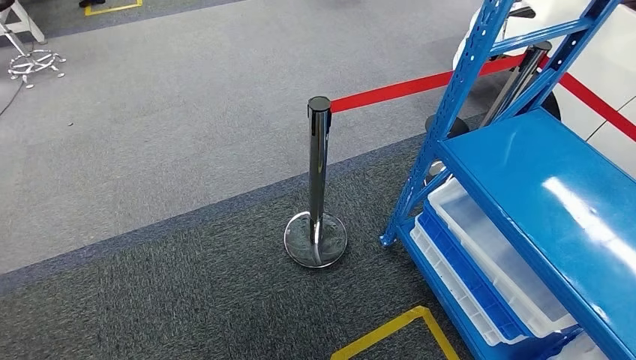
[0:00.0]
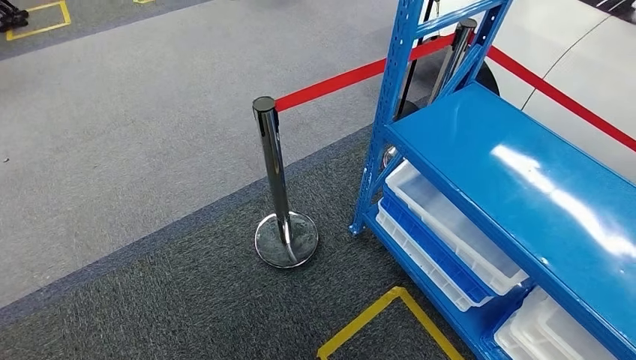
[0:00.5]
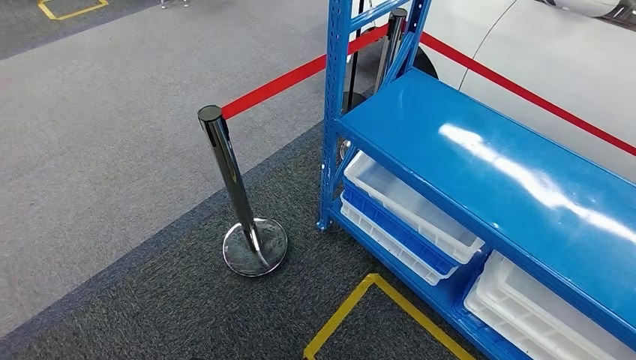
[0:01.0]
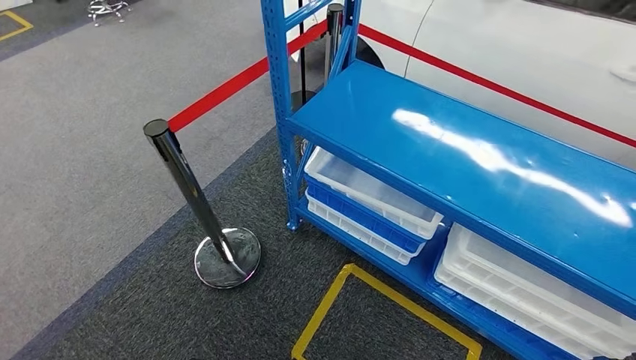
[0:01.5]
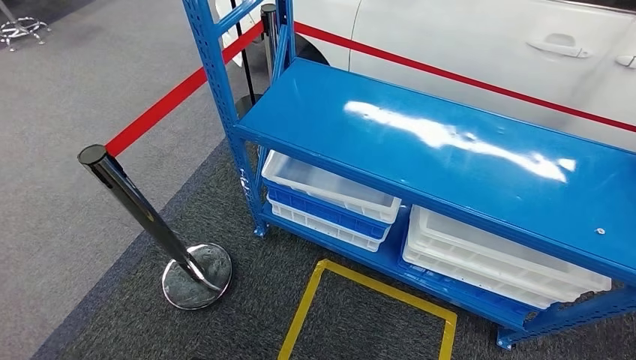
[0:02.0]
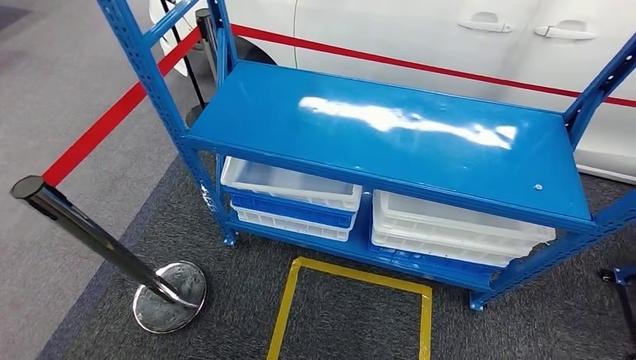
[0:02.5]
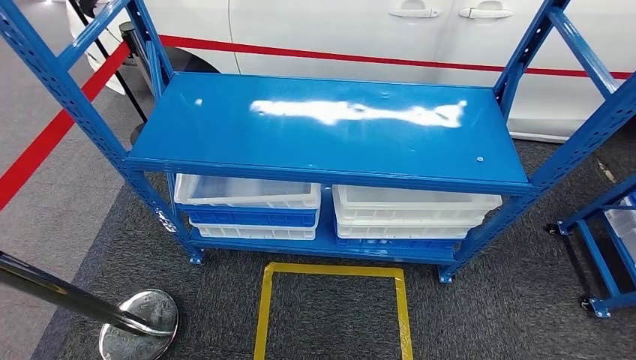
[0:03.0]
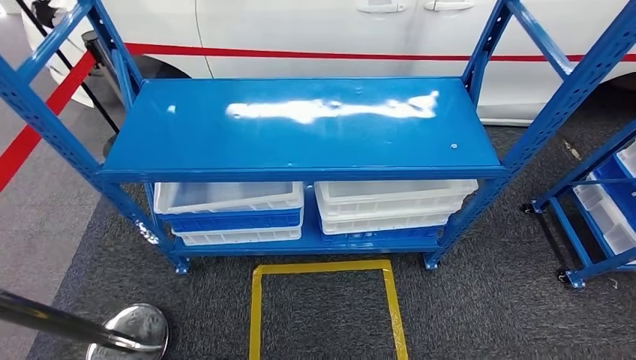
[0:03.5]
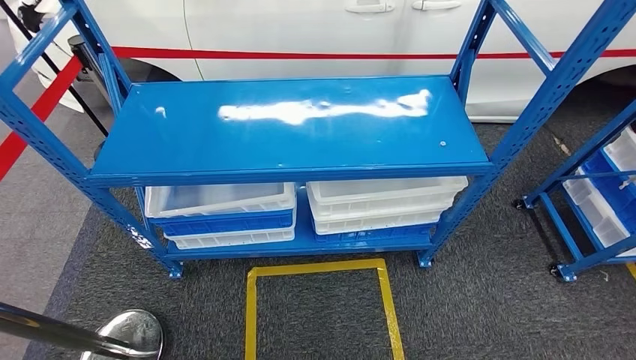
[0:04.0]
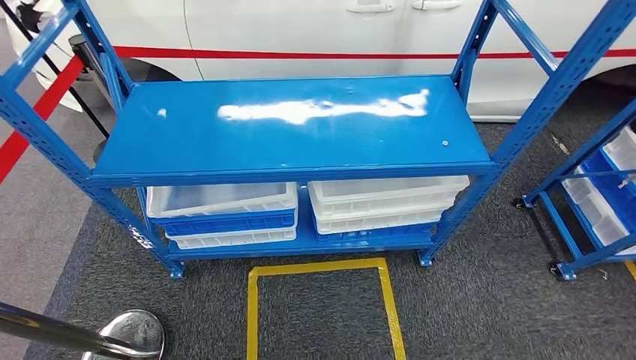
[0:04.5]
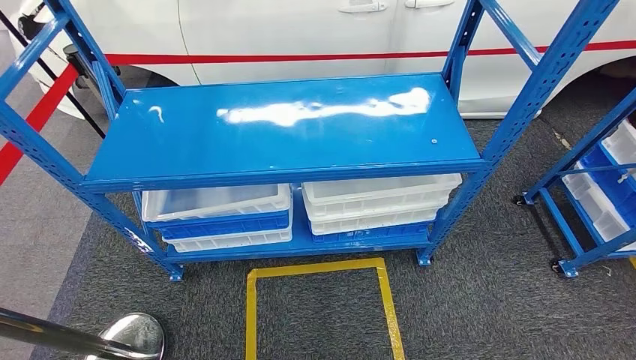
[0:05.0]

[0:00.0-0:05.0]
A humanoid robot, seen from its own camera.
Step, 0:00.0 to 0:05.0: Move to the initial position of the shelf.

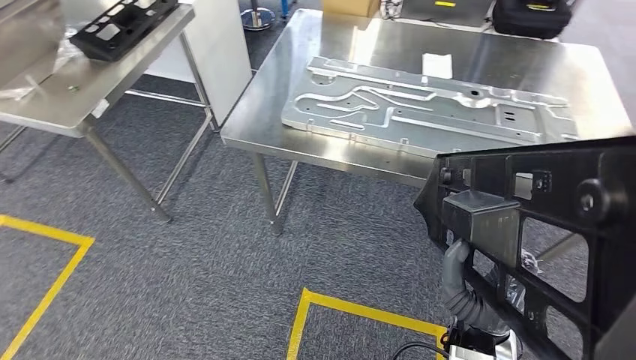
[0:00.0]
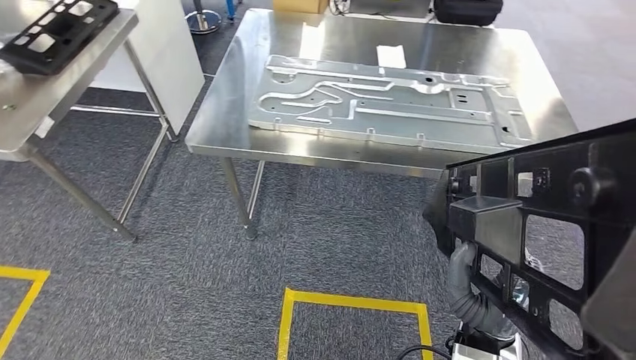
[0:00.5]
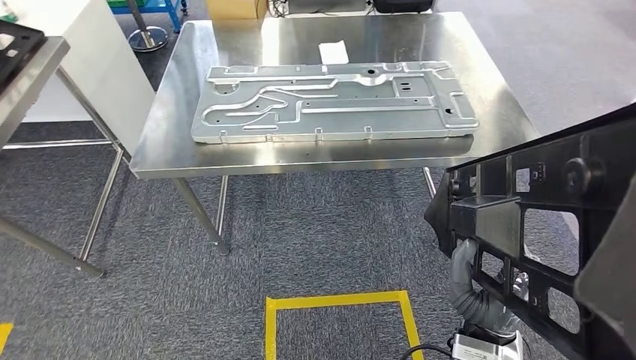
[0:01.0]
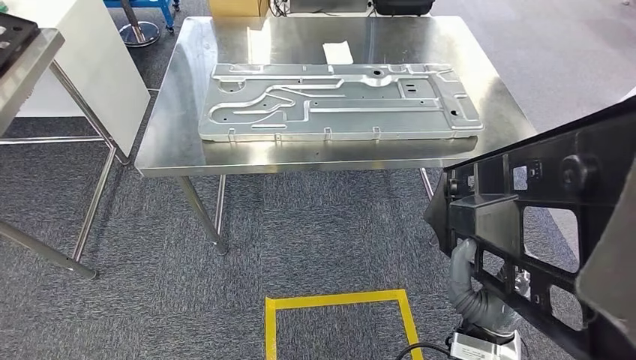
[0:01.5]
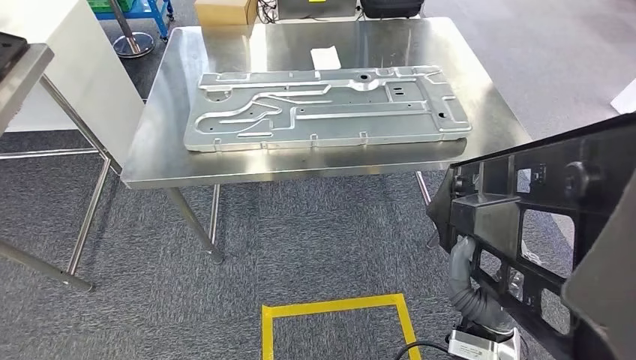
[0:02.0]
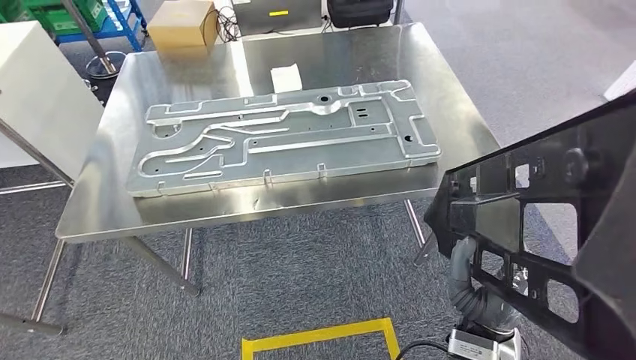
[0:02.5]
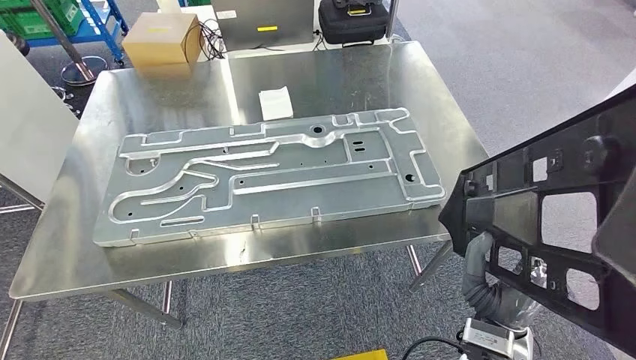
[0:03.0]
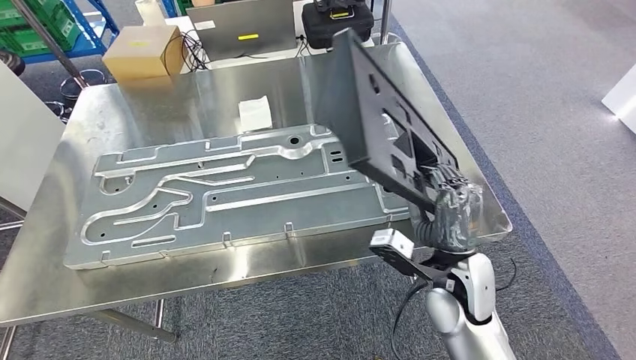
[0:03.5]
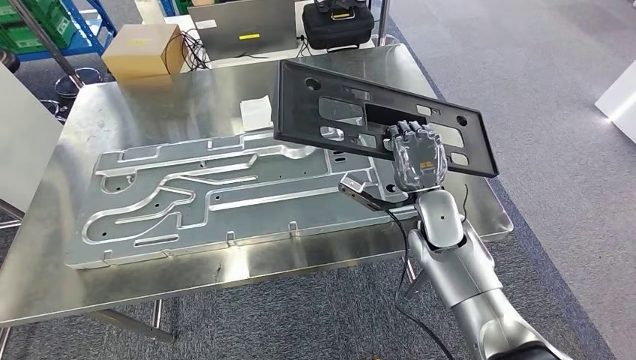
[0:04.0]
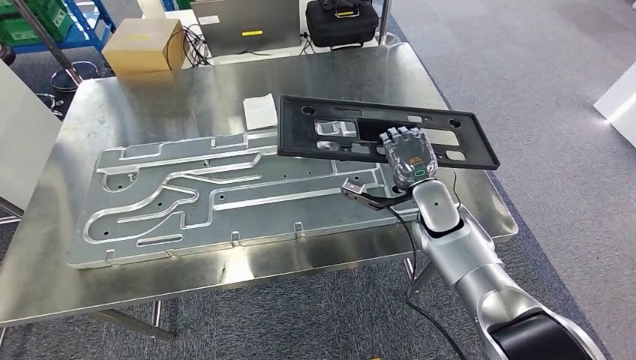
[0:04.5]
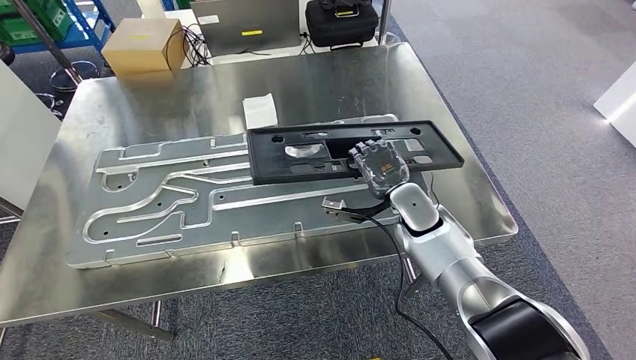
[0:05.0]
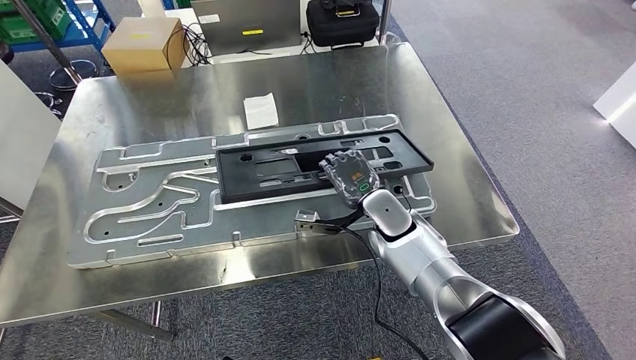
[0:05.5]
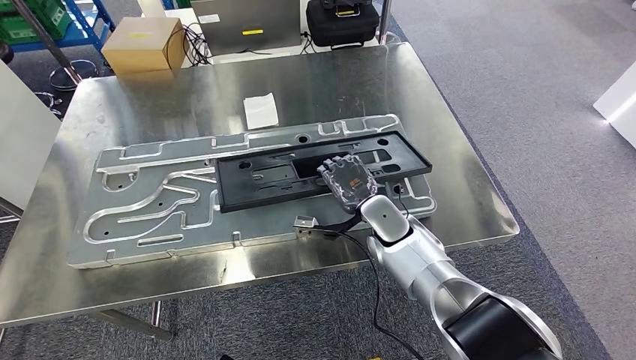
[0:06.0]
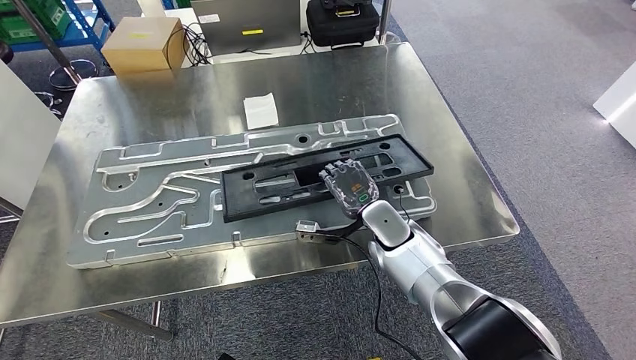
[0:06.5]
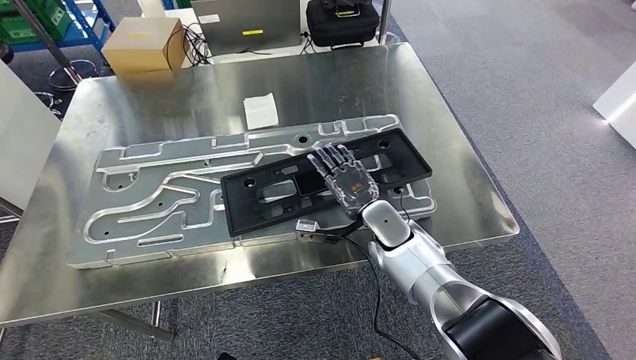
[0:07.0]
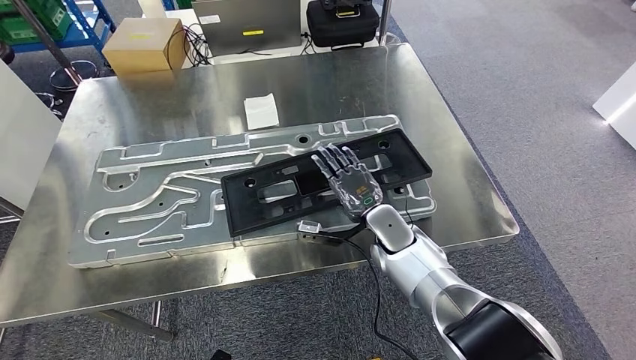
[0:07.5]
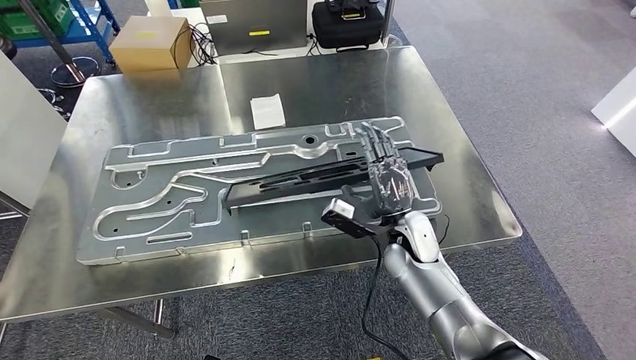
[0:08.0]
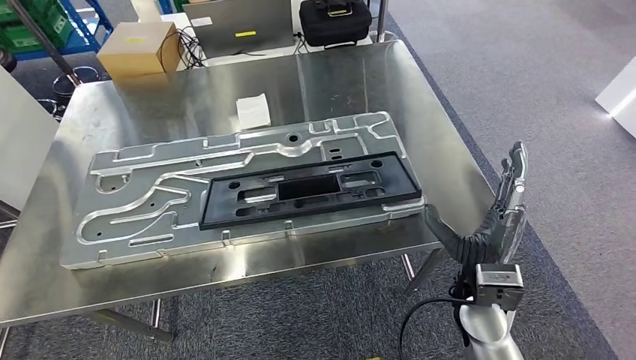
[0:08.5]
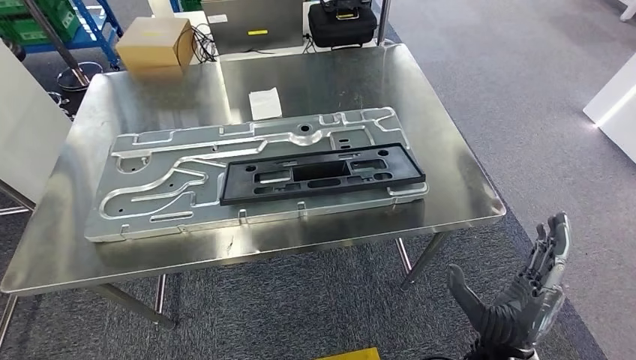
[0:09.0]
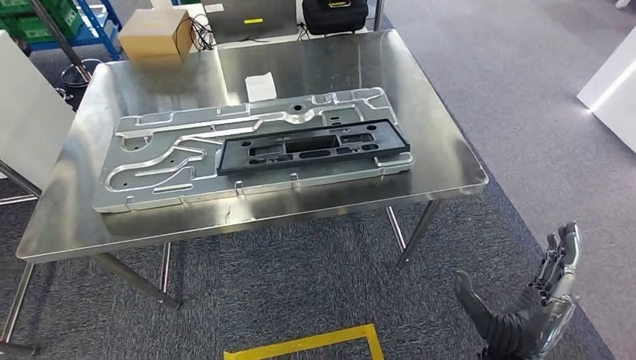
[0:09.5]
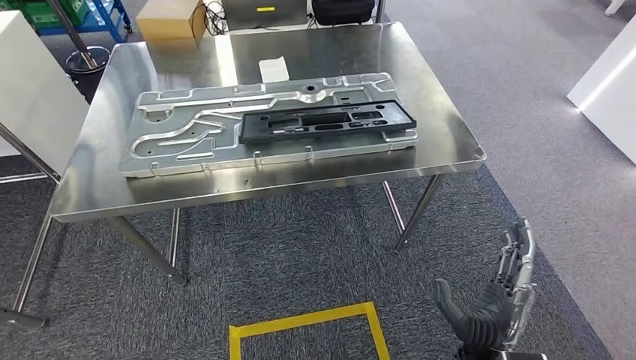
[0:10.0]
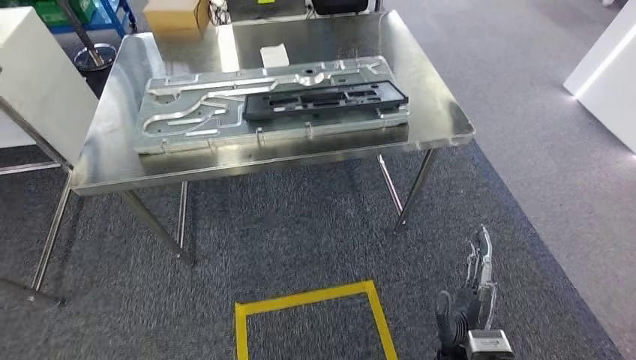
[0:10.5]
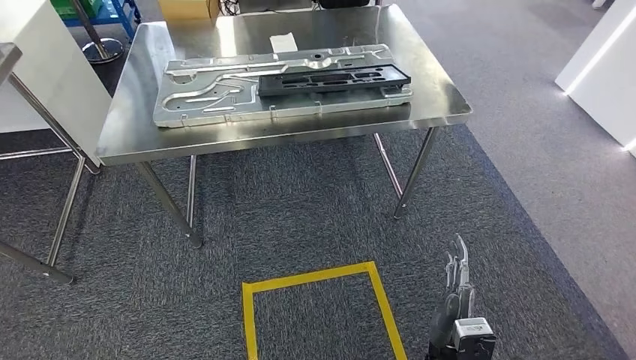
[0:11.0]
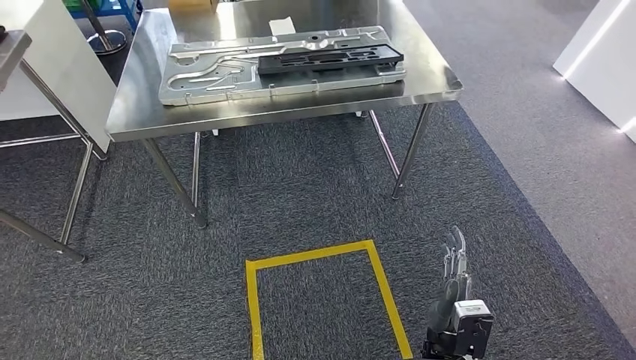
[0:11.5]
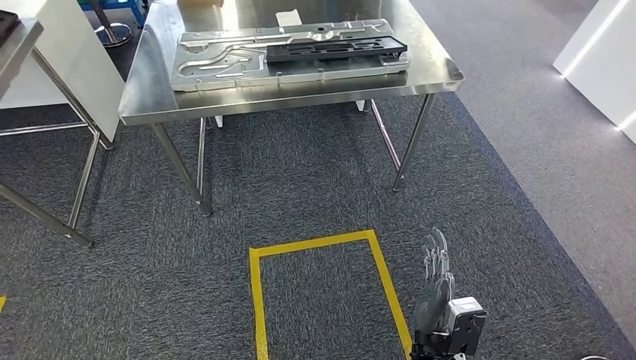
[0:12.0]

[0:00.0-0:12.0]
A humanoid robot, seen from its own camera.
Step, 0:00.0 to 0:03.0: Move the large material to the workbench.
